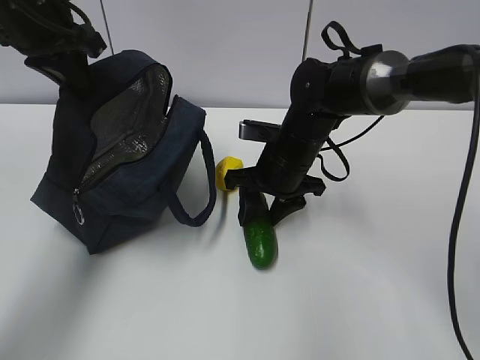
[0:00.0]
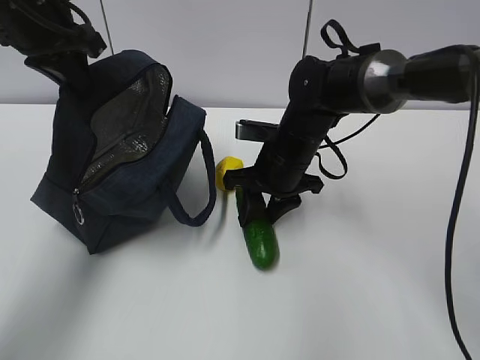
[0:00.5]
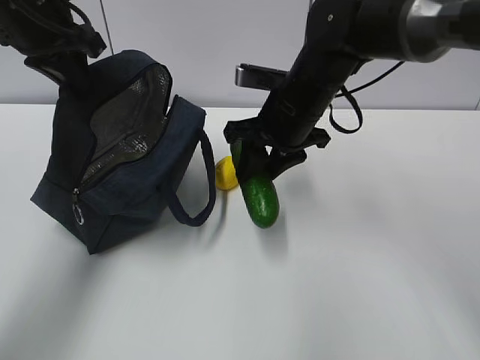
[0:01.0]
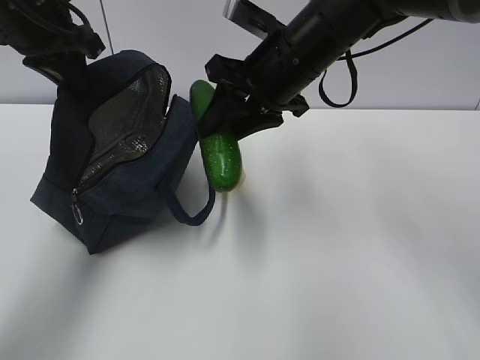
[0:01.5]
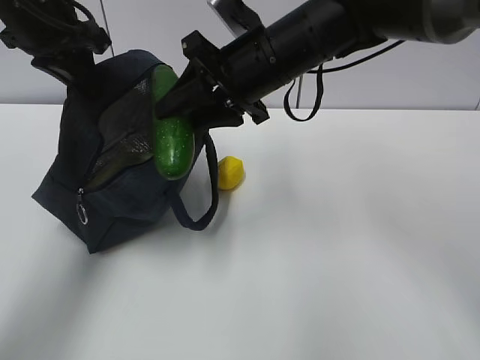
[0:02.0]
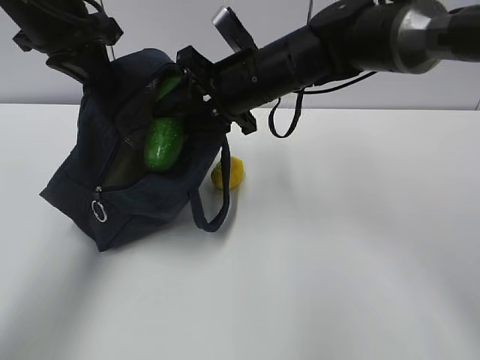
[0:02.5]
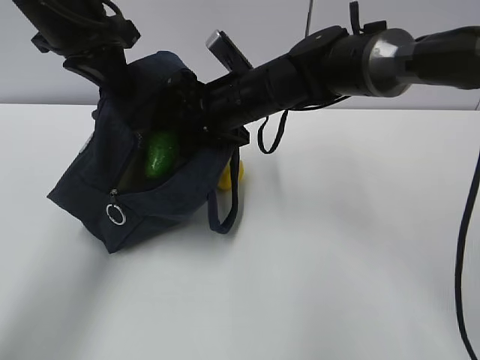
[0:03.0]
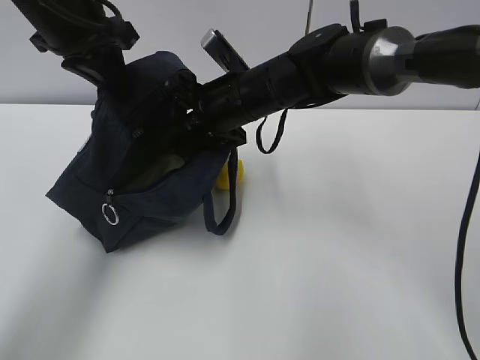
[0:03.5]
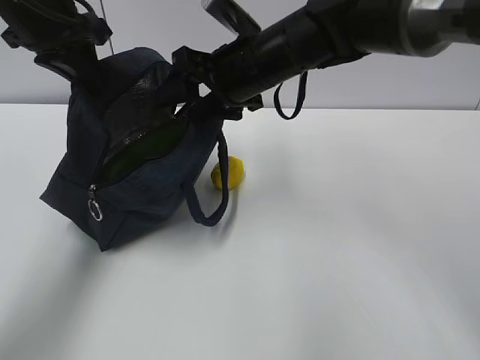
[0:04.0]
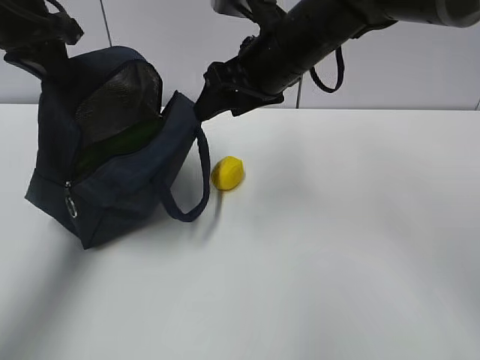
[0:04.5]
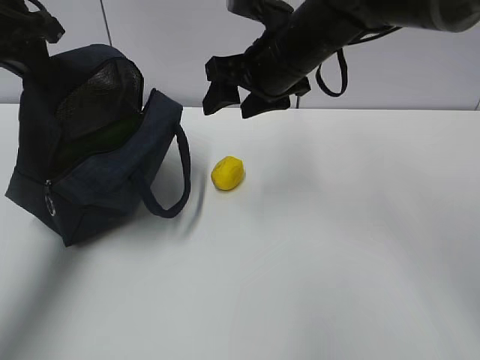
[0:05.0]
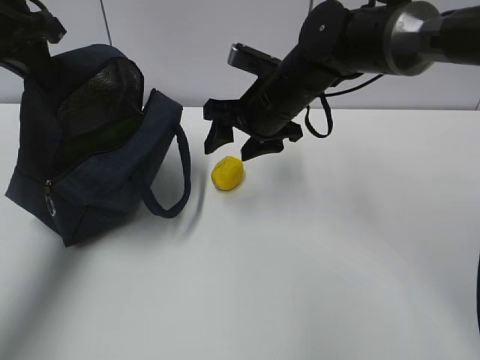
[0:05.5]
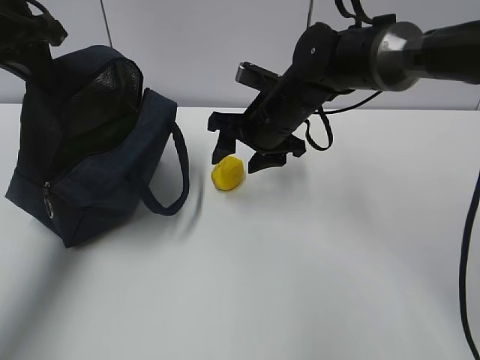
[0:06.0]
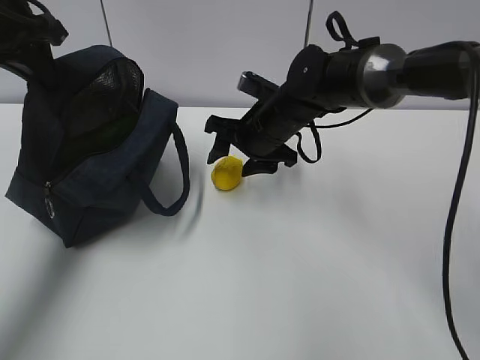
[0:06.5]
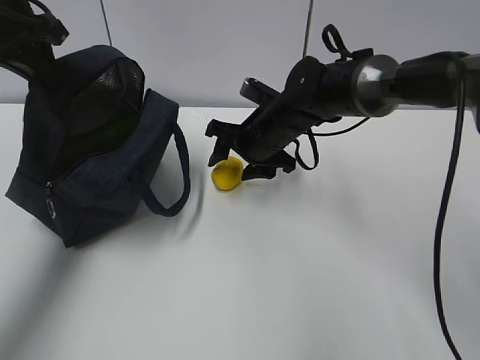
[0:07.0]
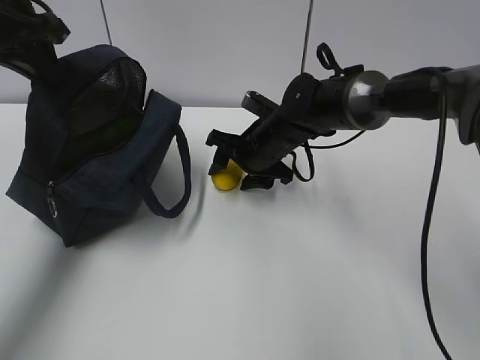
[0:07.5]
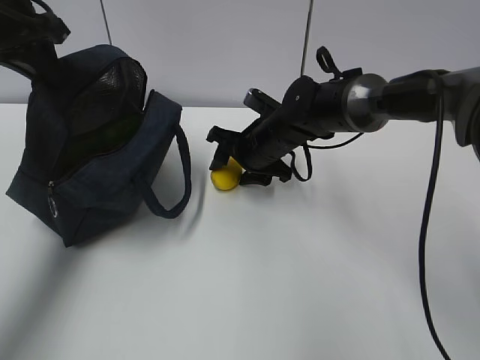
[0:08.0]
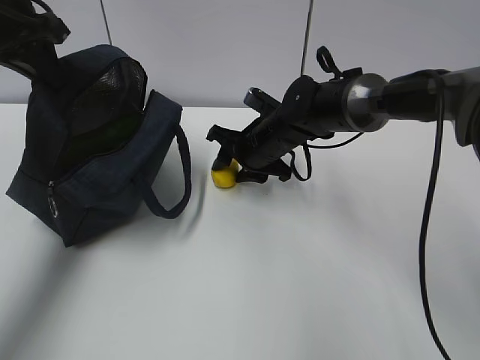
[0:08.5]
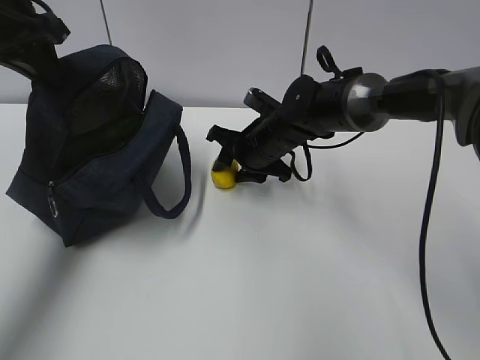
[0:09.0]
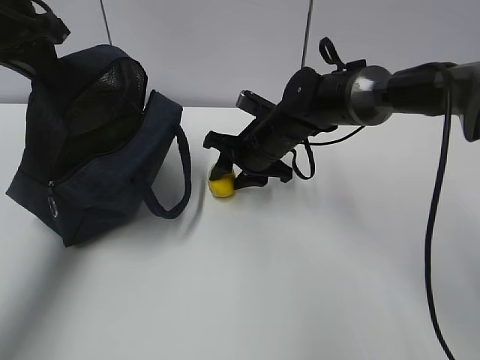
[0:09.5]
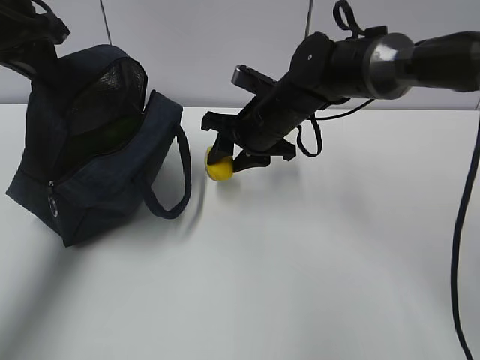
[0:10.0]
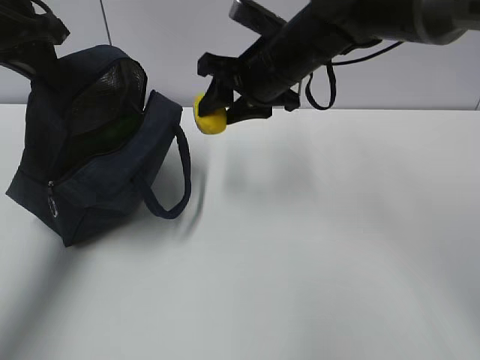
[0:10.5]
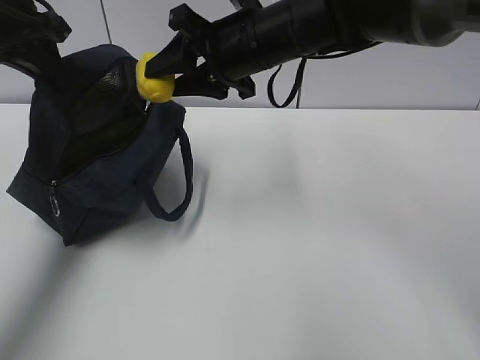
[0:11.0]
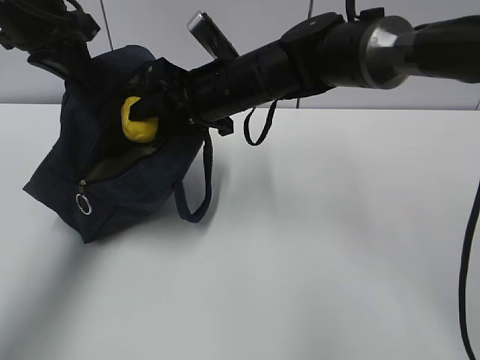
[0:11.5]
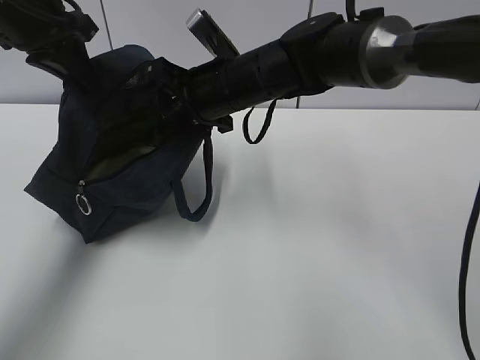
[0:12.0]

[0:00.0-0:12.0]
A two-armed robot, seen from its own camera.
Step, 0:00.0 to 0:02.5: Grab the lemon with your right hand.
Step, 0:03.0 to 0:04.5: Secure the lunch bag with your left hand.
Step, 0:05.0 to 0:06.5: Grab the lunch bag with your right hand.
Step, 0:07.0 to 0:10.5: Move the lunch bag to the right.
0:00.0 to 0:02.0: The right gripper goes some 15 cm upward.
0:02.0 to 0:04.0: The right gripper opens its fingers.
0:04.0 to 0:06.0: The left gripper moves to the left, approximately 5 cm. Meanwhile the right gripper travels downward by some 5 cm.
0:06.0 to 0:08.0: The right gripper travels downward by approximately 5 cm.
0:08.0 to 0:10.0: The right gripper ends up some 5 cm from where it was.
0:10.0 to 0:12.0: The right gripper goes roughly 5 cm upward.

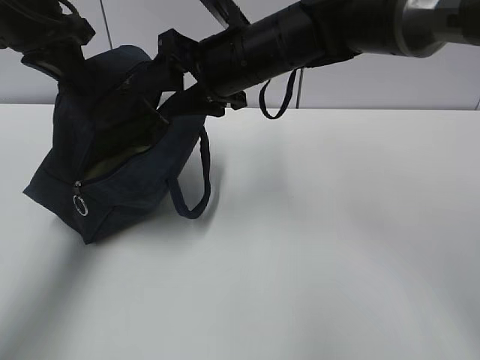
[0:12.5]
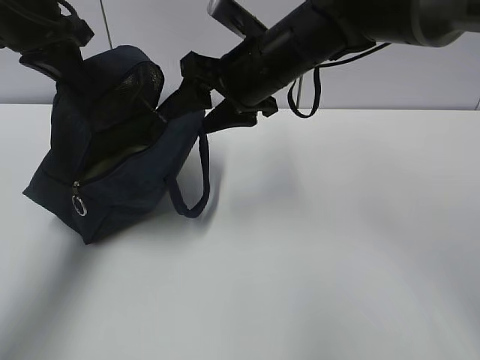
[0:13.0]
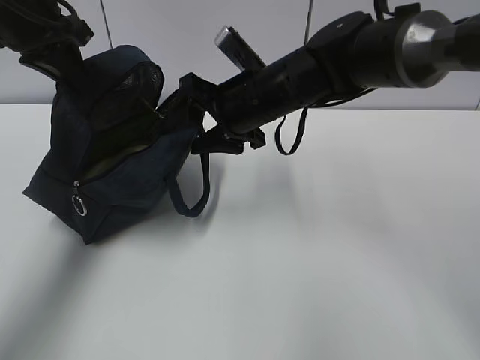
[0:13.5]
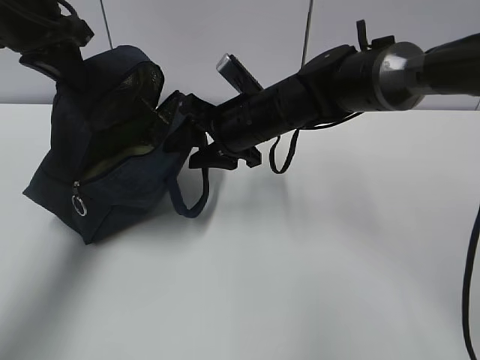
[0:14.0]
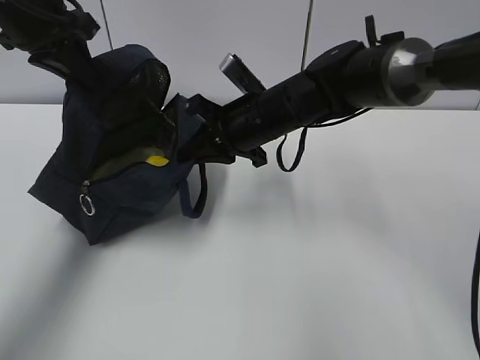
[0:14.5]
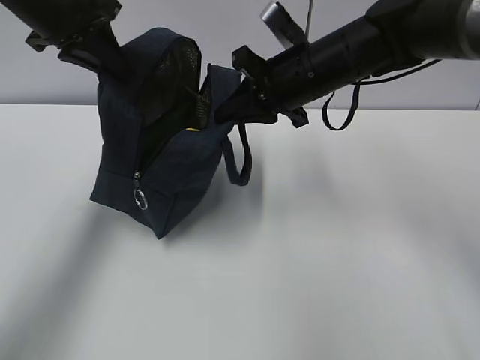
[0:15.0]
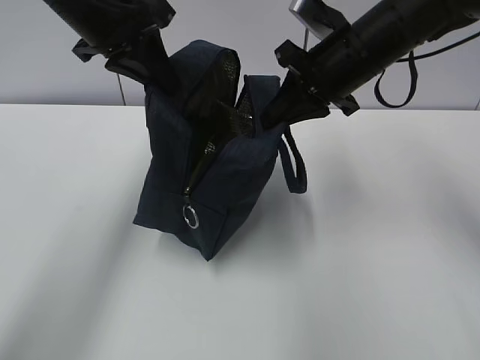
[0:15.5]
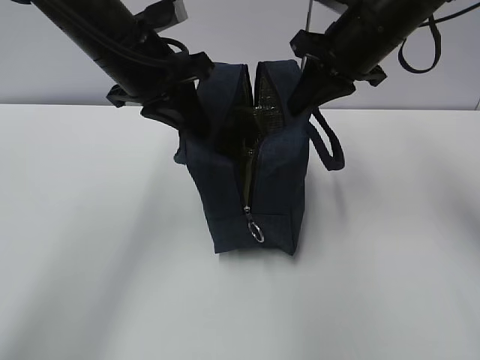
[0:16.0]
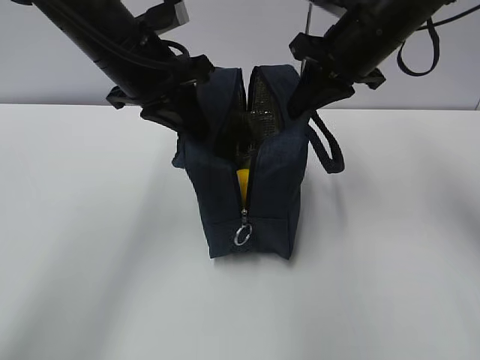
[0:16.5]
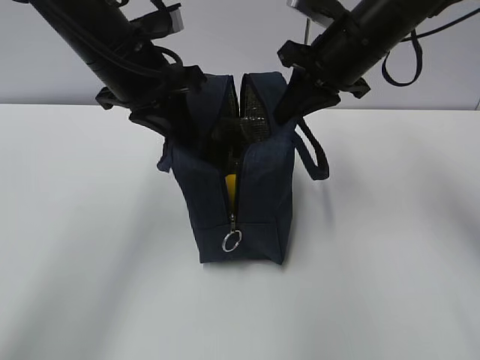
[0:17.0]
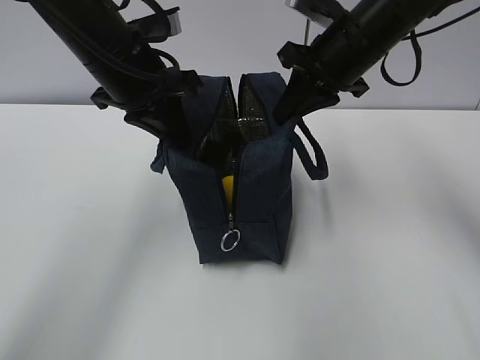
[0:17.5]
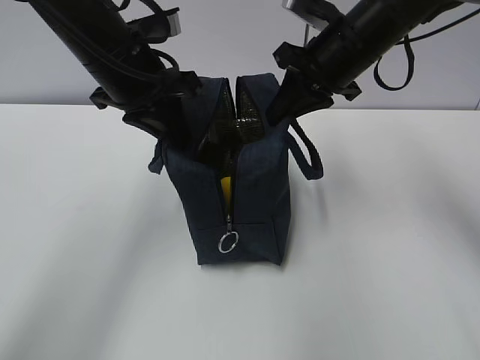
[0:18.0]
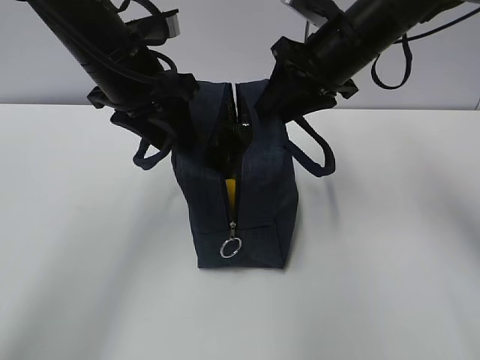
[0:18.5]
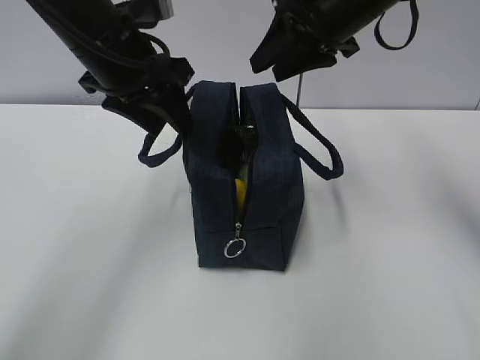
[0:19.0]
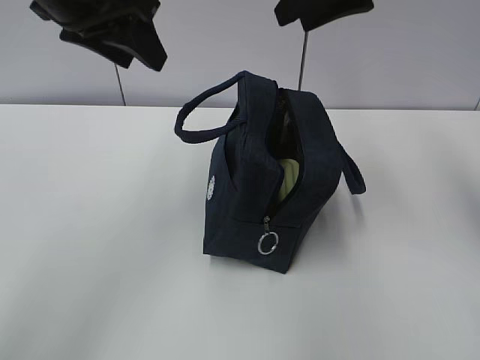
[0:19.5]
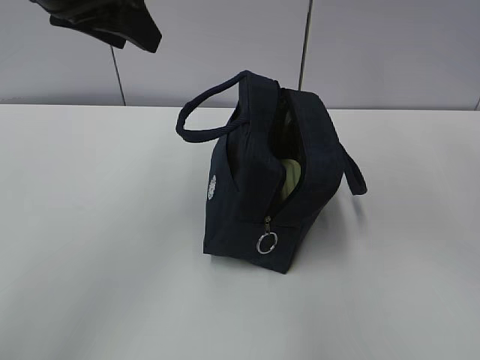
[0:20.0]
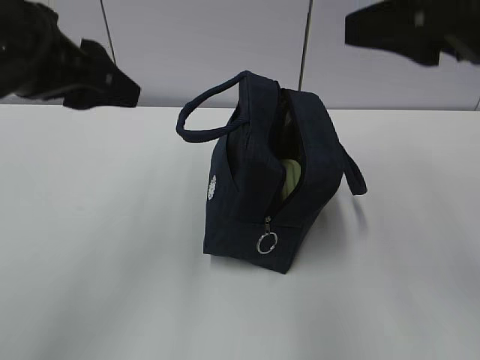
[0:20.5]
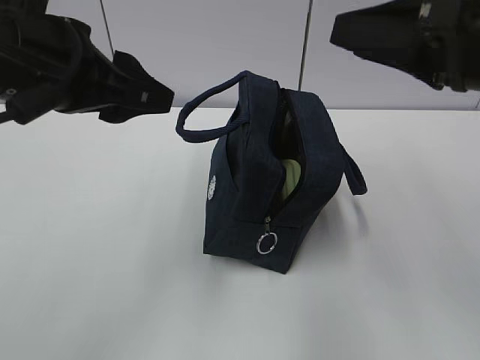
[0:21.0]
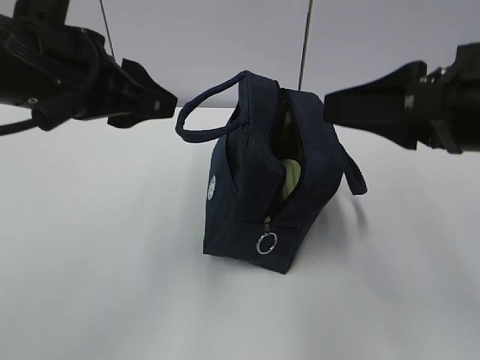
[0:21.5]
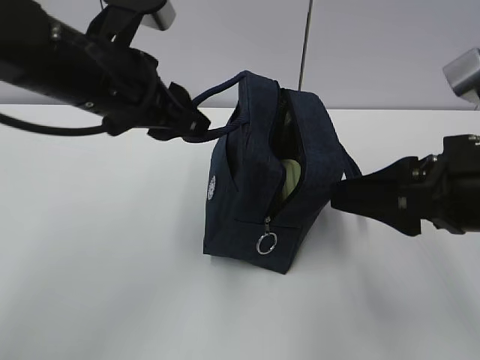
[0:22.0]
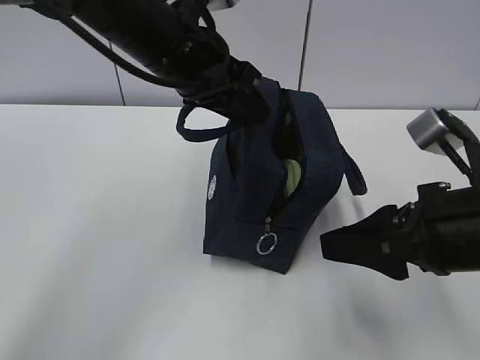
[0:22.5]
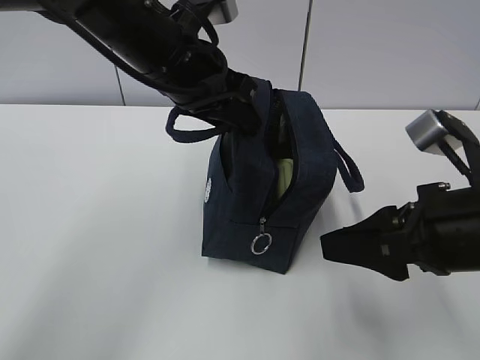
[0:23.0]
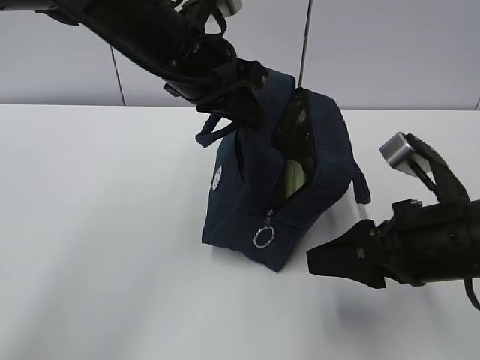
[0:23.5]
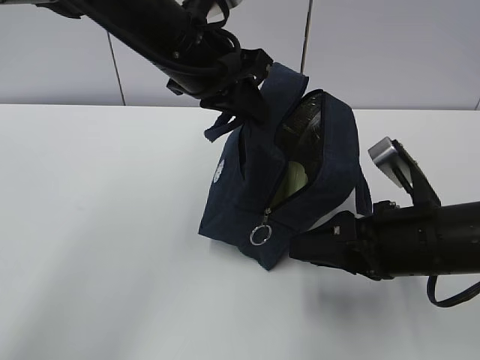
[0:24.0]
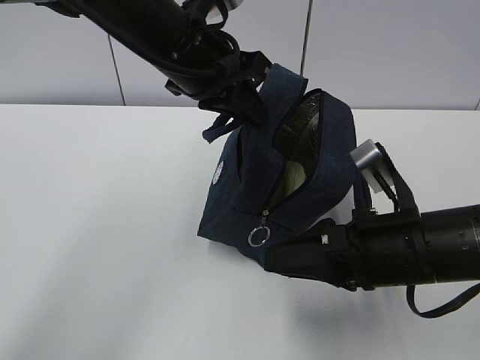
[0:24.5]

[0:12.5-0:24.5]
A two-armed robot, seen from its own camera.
Step, 0:12.5 to 0:19.5: Grab the lunch bag with your left hand.
0:12.5 to 0:14.5: The right gripper goes some 10 cm downward, and closes its fingers.
0:14.5 to 0:16.5: The left gripper travels to the right by roughly 10 cm. The right gripper travels to the right and upward by about 15 cm.
0:16.5 to 0:18.5: The left gripper opens up. The right gripper opens its fingers.
0:18.5 to 0:20.5: The right gripper is displaced backward and upward by some 20 cm; the left gripper heads backward, to the left and upward, covering some 10 cm.
0:20.5 to 0:22.5: The right gripper moves downward, some 15 cm; the left gripper shifts about 15 cm to the right and forward.
0:22.5 to 0:24.5: The right gripper travels downward by about 5 cm. The left gripper closes its fingers.

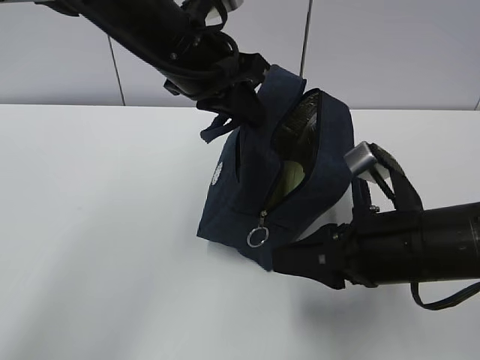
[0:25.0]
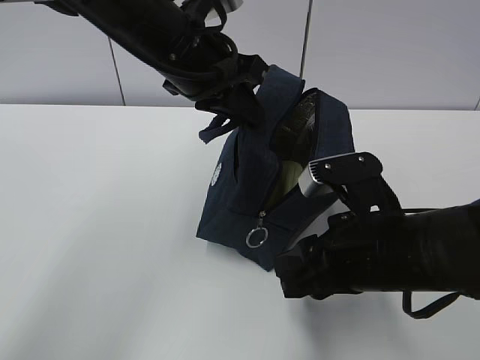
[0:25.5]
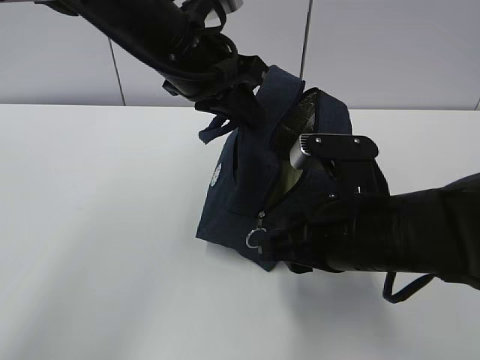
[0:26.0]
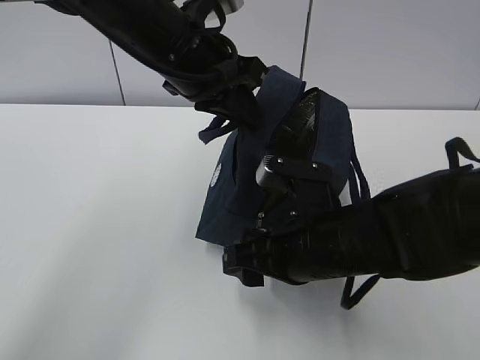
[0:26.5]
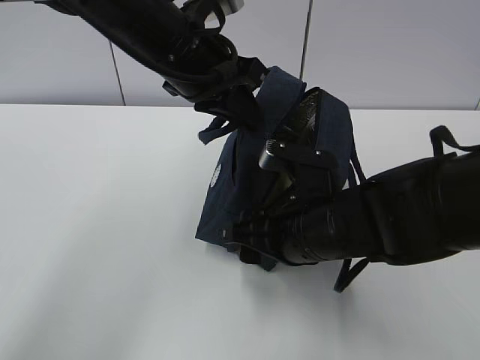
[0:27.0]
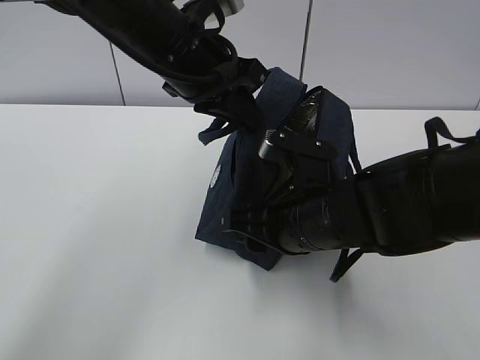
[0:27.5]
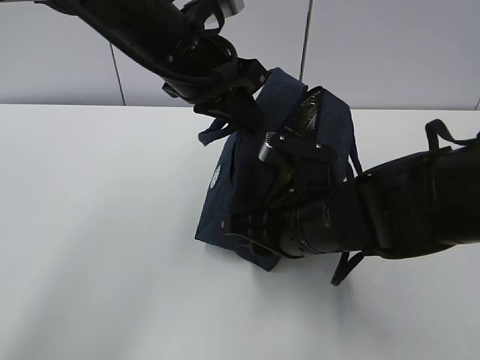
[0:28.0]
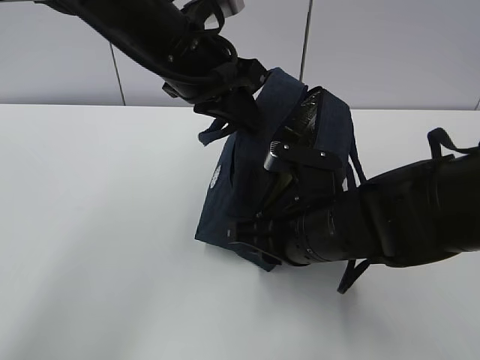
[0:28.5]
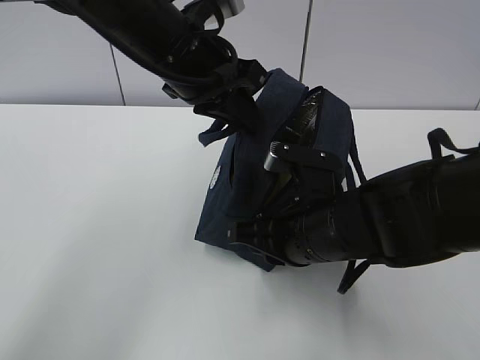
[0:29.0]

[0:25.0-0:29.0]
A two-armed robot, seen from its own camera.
0:25.0 to 0:27.0: The right gripper heads to the left, covering some 10 cm, and opens its fingers.
0:27.0 to 0:29.0: The right gripper closes.
